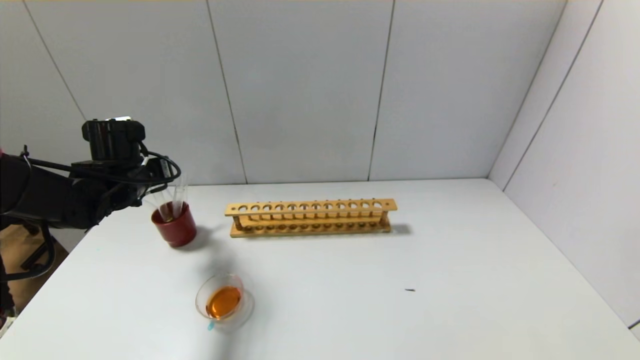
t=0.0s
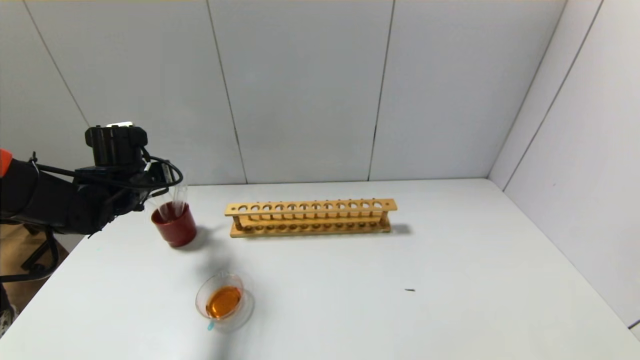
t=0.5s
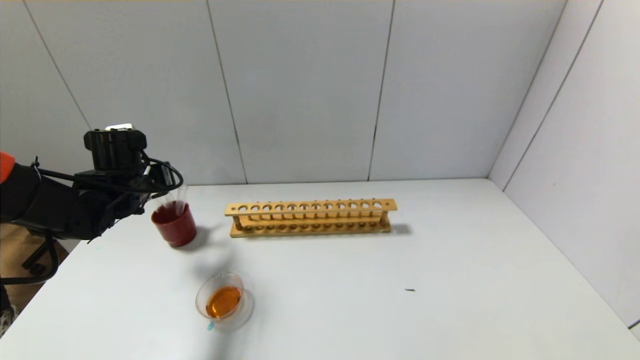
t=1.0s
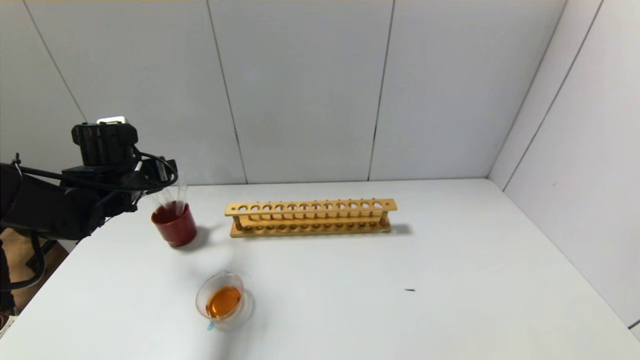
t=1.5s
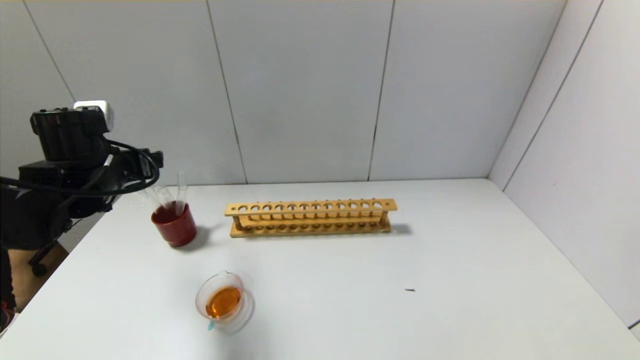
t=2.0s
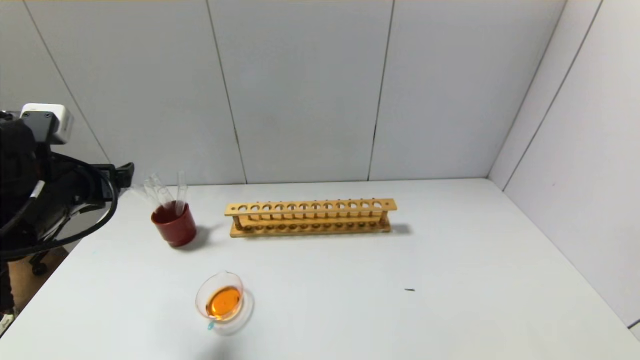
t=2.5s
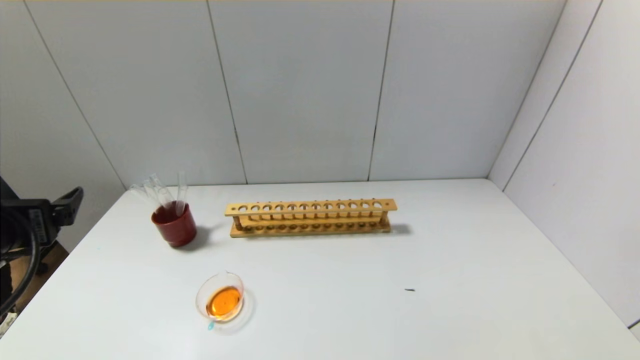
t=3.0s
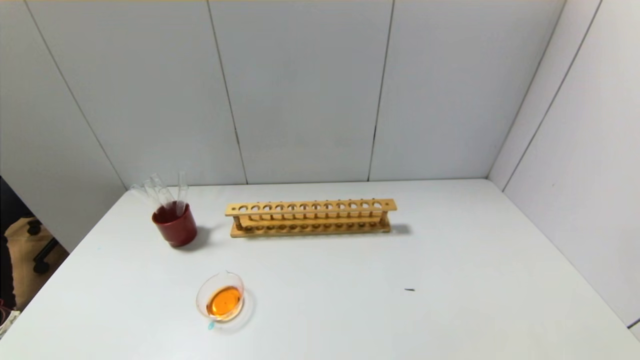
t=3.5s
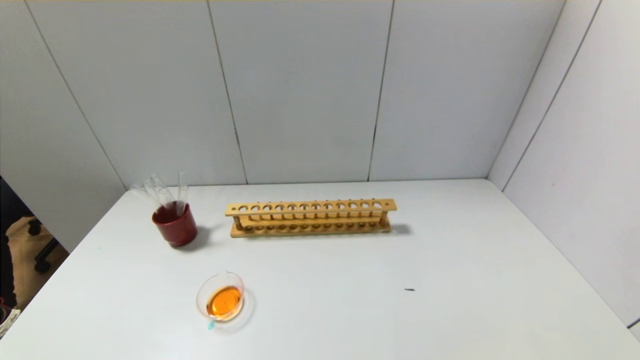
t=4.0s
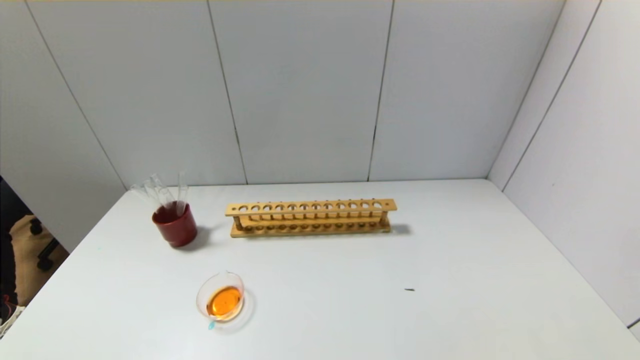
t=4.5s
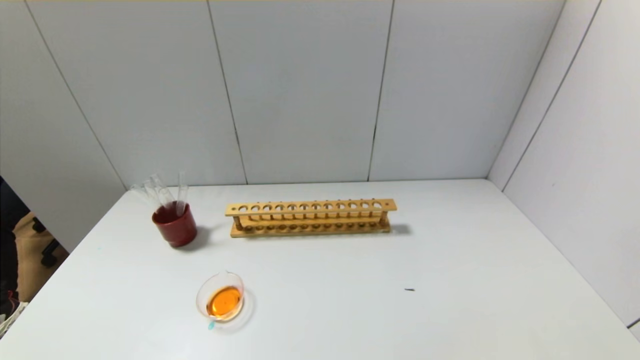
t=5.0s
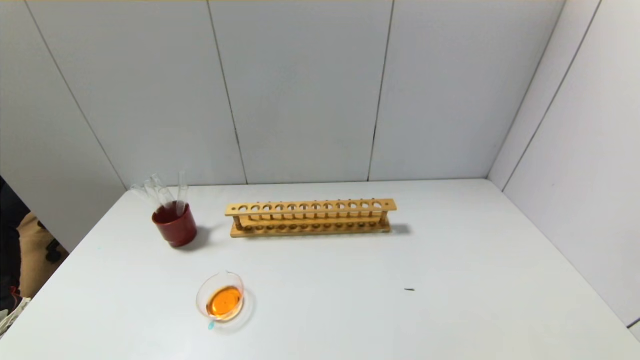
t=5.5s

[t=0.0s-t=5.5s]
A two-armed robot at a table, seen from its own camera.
t=0.0s to t=2.0s: The left gripper goes about 5 cm backward, and opens.
t=2.0s to t=3.5s: The left gripper moves backward, some 30 cm.
t=3.5s to t=5.5s: The left gripper shifts roughly 15 cm downward and backward.

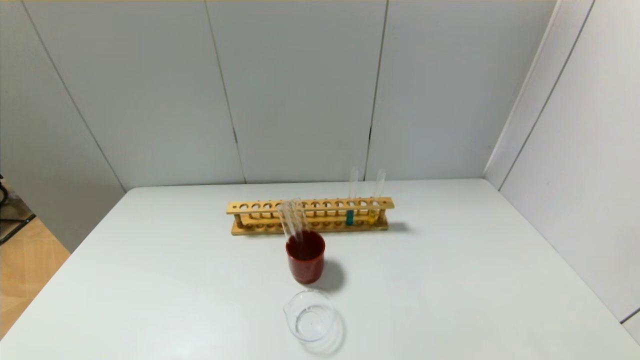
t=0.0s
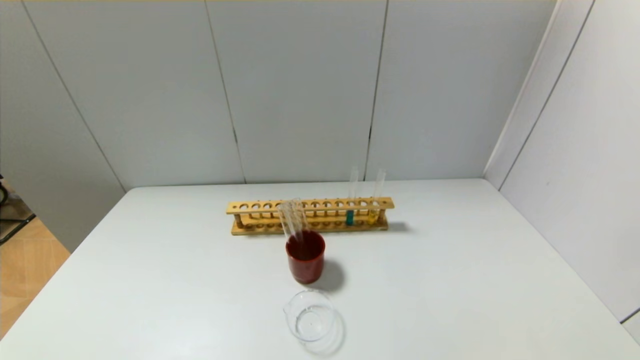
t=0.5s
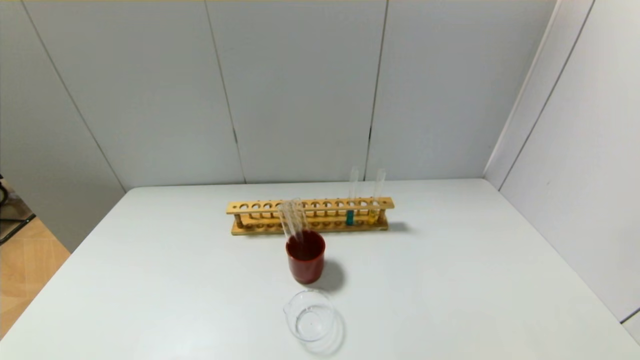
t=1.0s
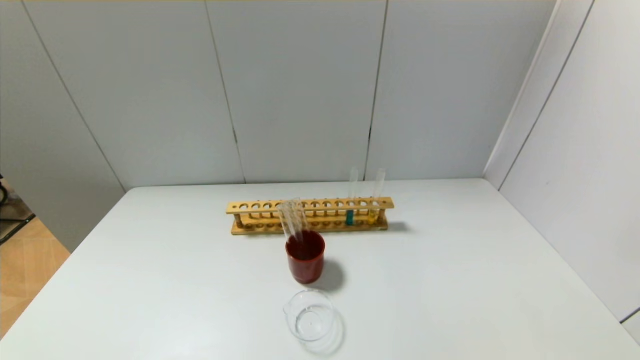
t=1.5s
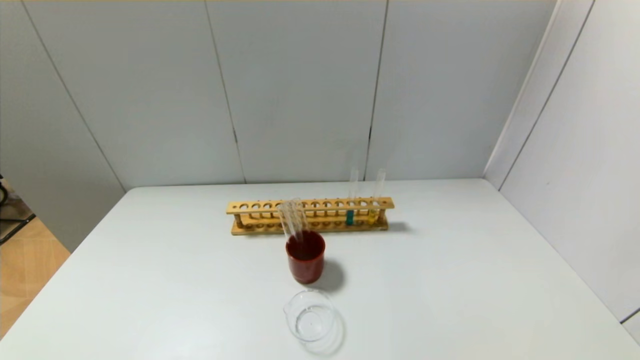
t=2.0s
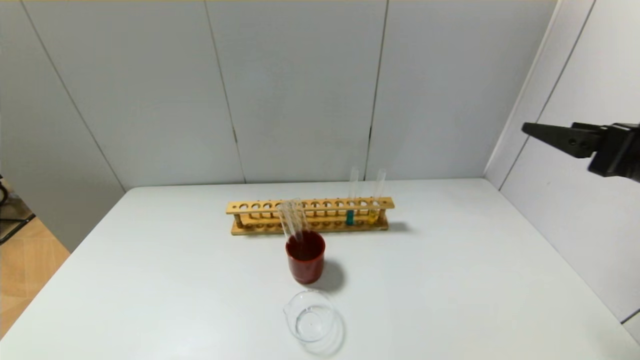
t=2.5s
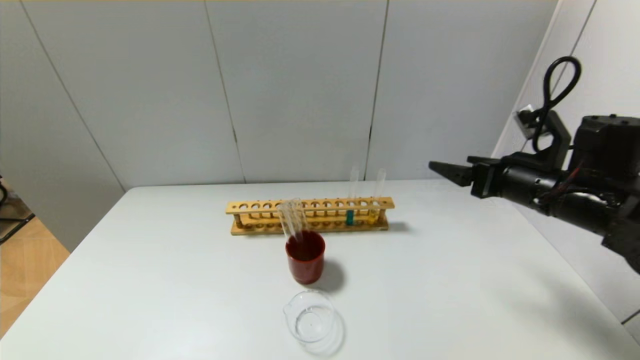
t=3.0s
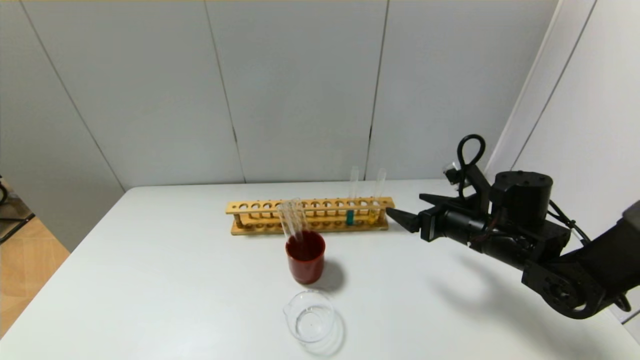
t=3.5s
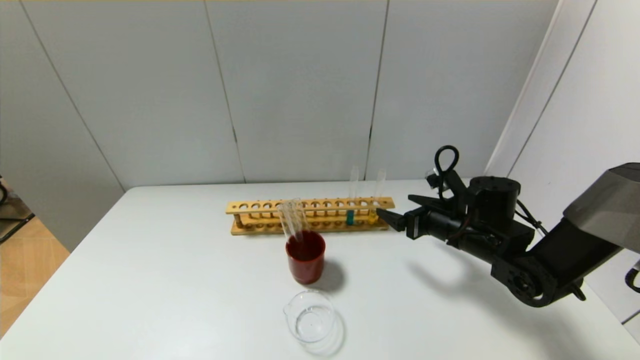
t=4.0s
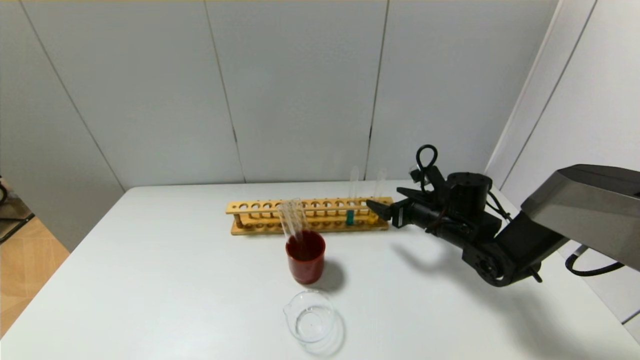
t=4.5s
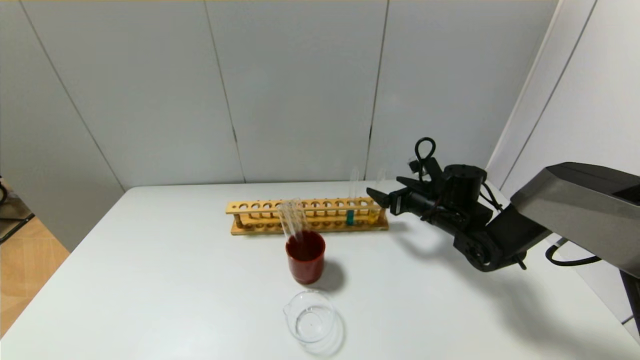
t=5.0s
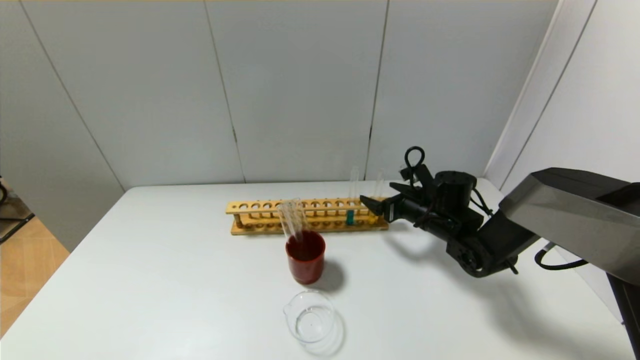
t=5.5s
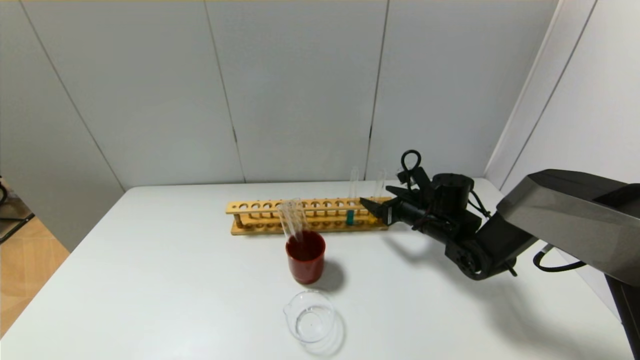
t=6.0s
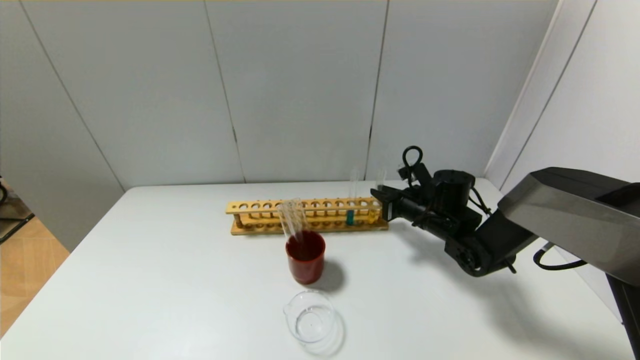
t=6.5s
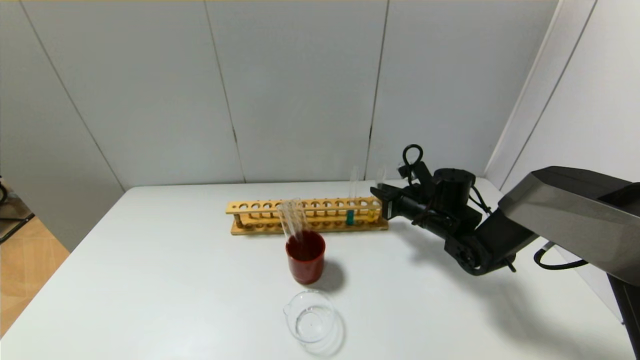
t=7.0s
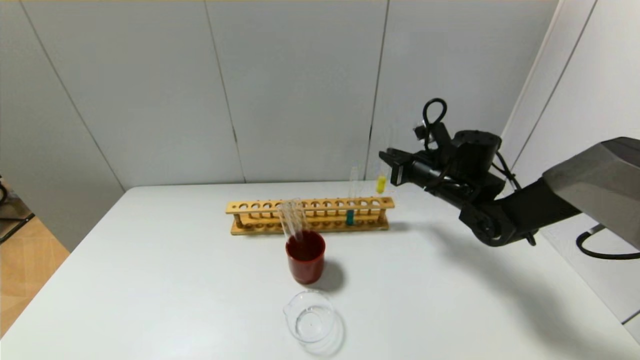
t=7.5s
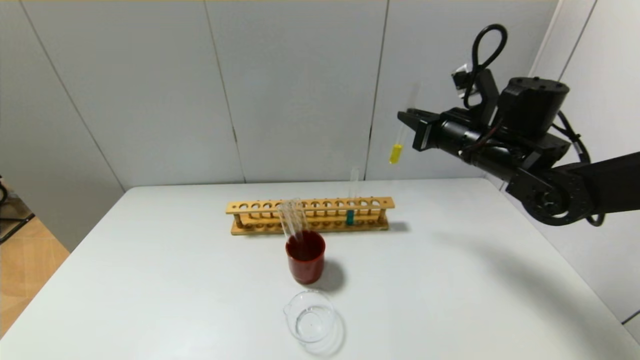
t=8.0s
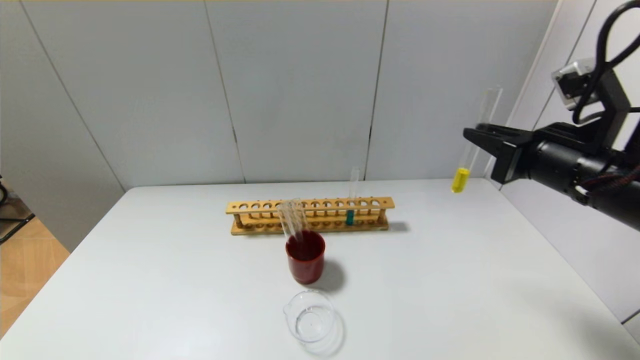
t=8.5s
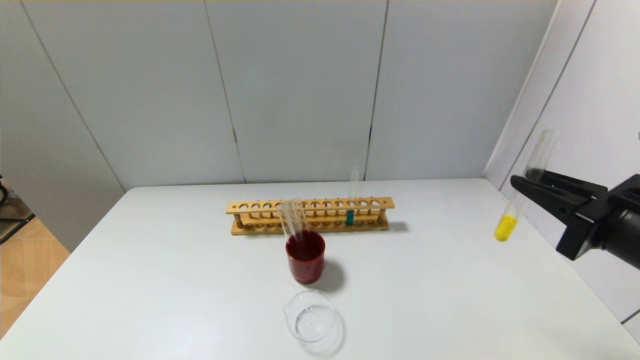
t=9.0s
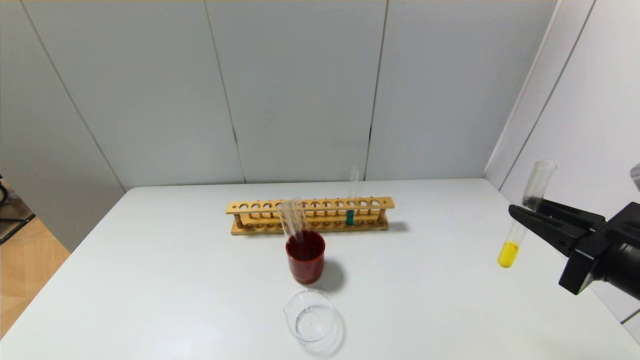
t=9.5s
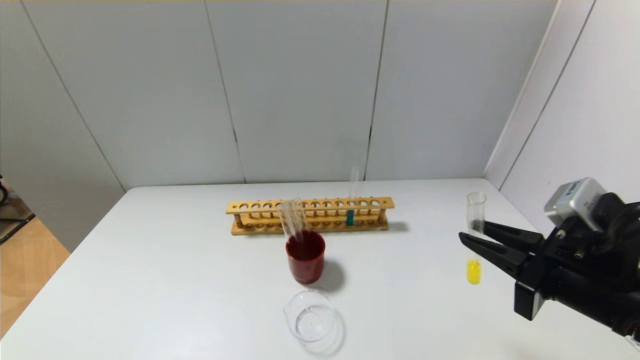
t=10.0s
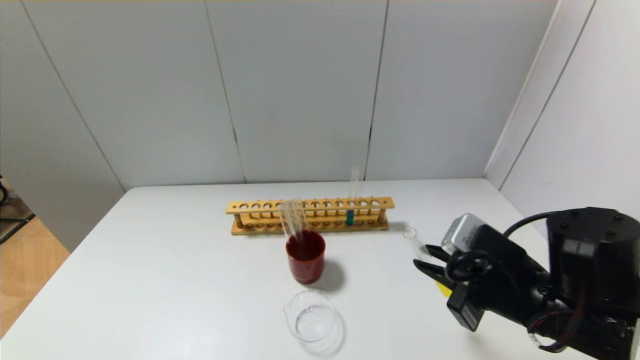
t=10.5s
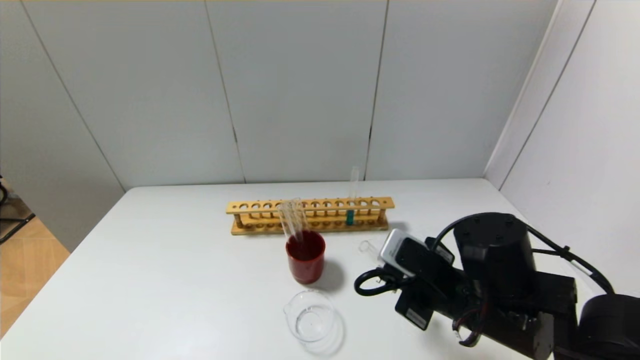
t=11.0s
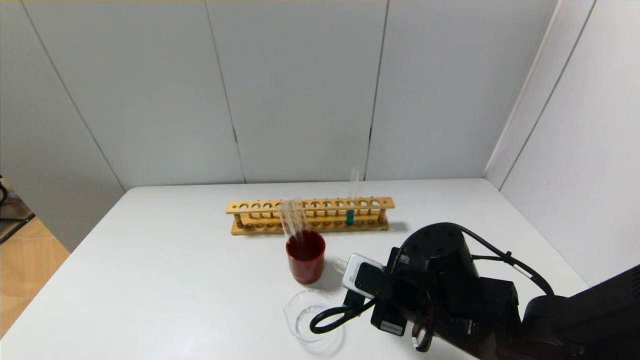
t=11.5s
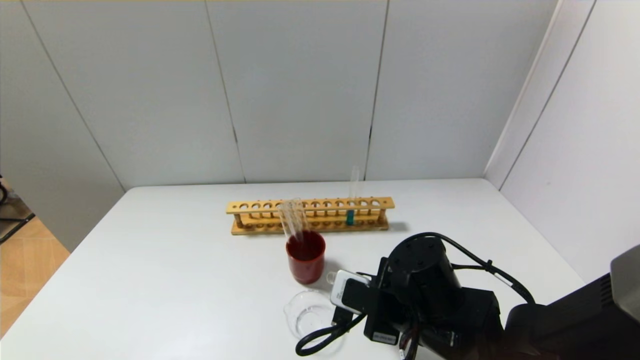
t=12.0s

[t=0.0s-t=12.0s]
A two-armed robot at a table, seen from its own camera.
Step, t=0.0s to t=6.5s: Grasp the yellow reagent with the right gripper.
t=2.0s to t=4.0s: The right gripper goes about 35 cm forward and downward.
t=4.0s to t=6.0s: The right gripper is displaced forward by about 5 cm.
t=6.0s to t=8.0s: The right gripper heads upward, covering approximately 20 cm, and closes.
t=8.0s to t=10.0s: The right gripper goes roughly 20 cm backward.
t=10.0s to t=12.0s: The right gripper travels to the left and downward by approximately 15 cm.

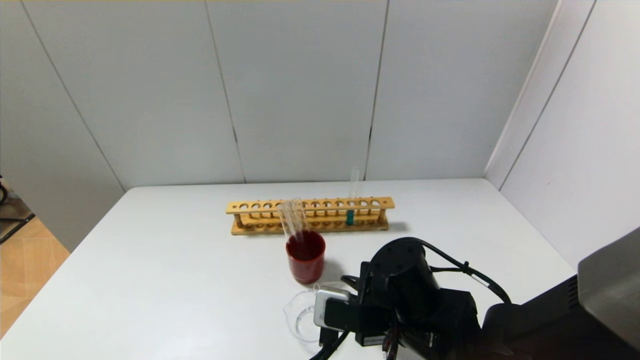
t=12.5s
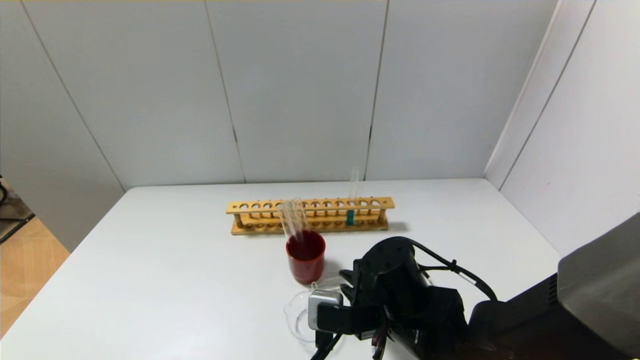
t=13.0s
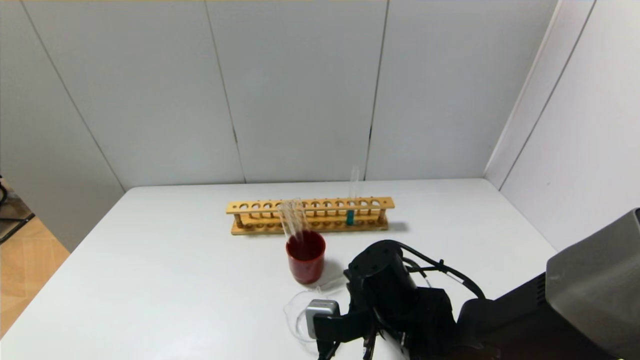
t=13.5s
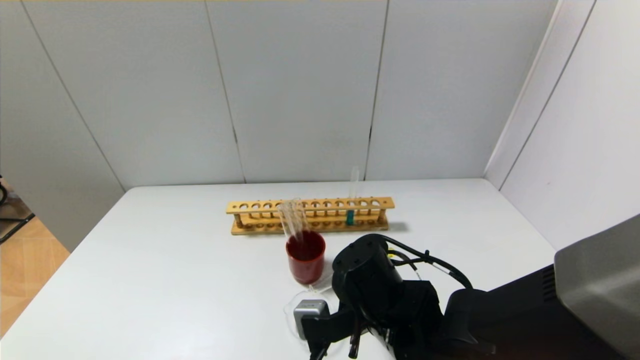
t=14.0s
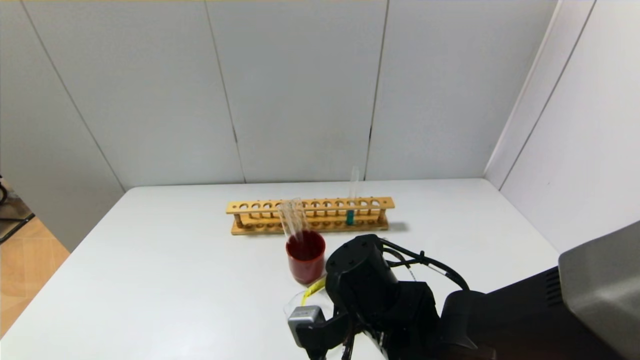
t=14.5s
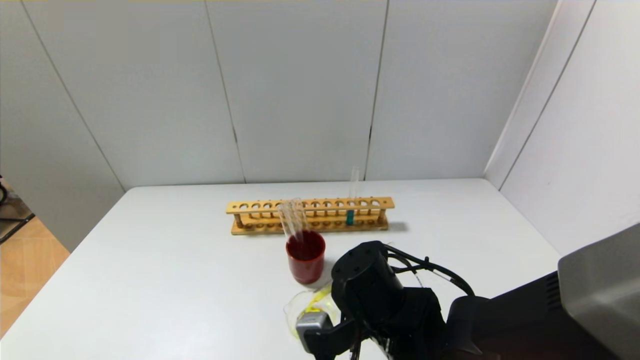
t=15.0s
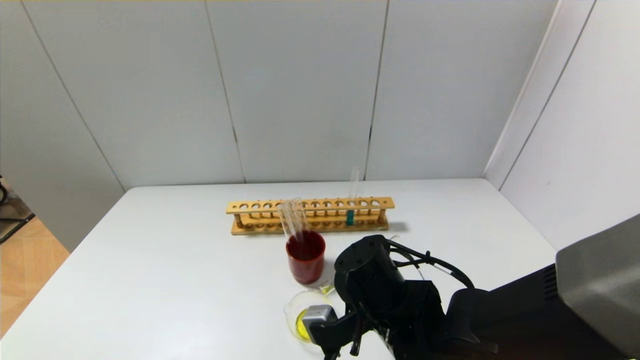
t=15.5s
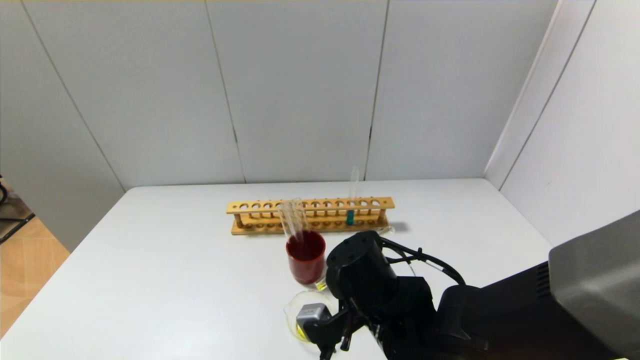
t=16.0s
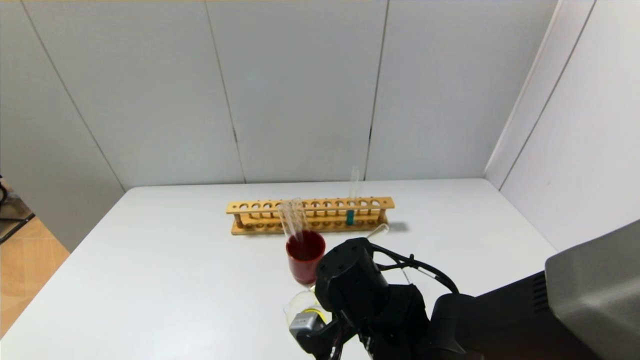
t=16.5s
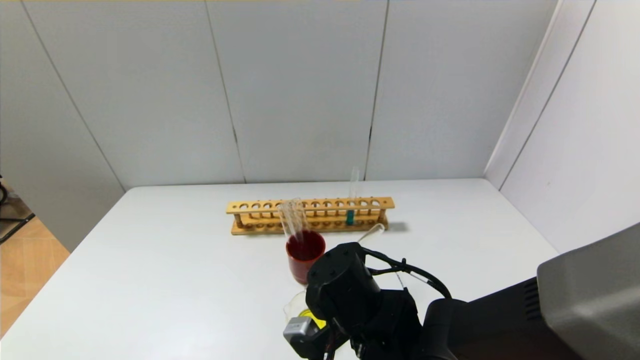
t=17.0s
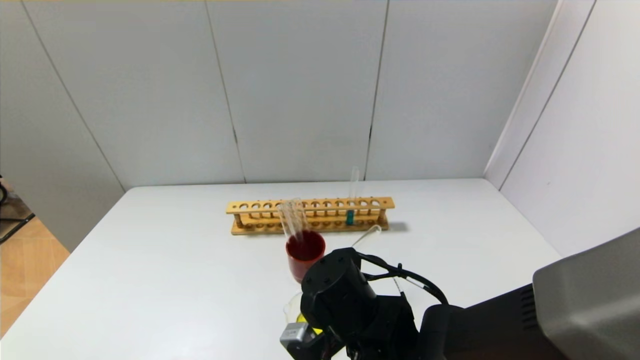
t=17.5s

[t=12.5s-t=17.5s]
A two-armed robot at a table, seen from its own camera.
t=15.0s to t=17.5s: The grippers stay close to where they were, moving slightly.
